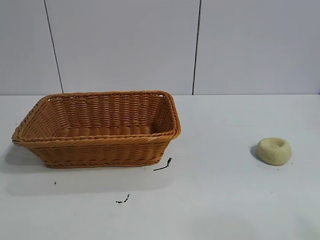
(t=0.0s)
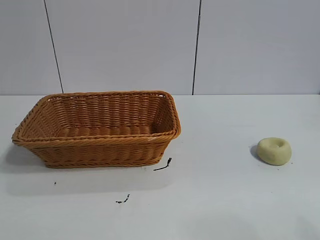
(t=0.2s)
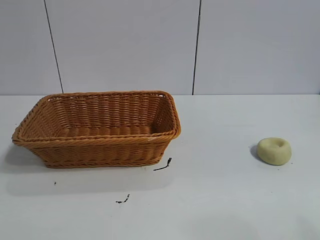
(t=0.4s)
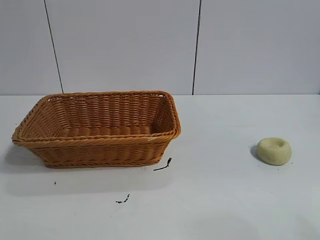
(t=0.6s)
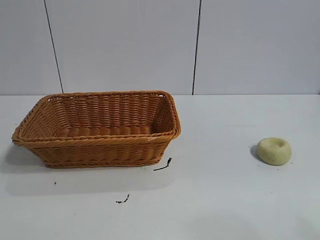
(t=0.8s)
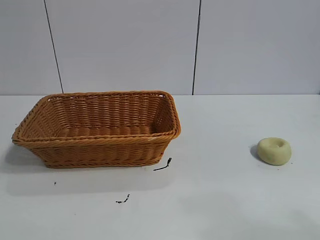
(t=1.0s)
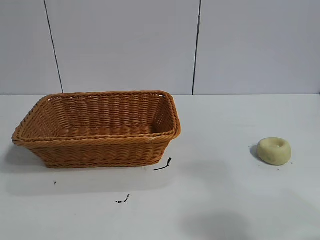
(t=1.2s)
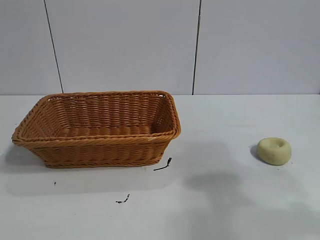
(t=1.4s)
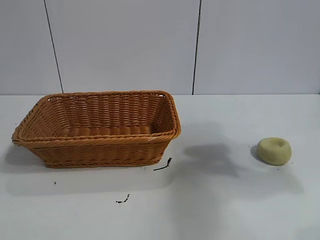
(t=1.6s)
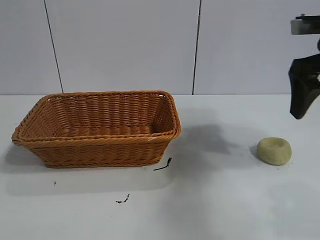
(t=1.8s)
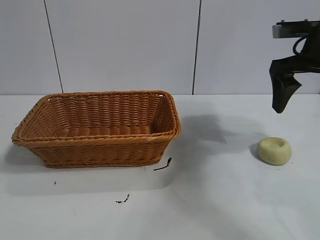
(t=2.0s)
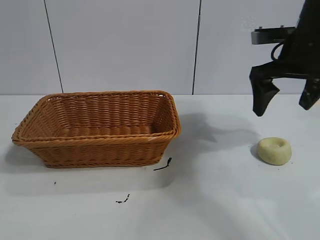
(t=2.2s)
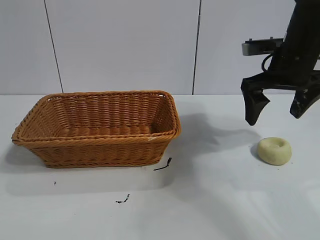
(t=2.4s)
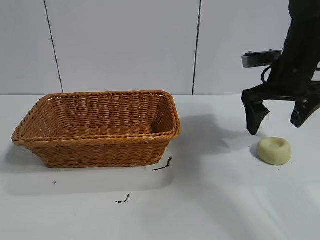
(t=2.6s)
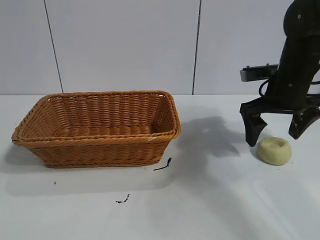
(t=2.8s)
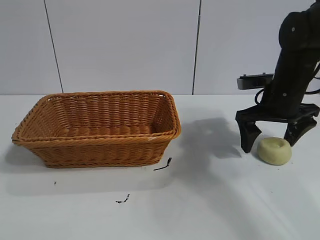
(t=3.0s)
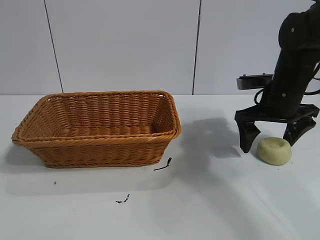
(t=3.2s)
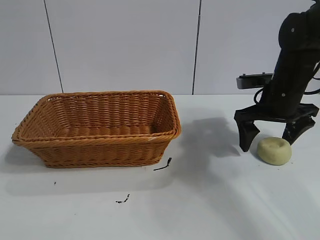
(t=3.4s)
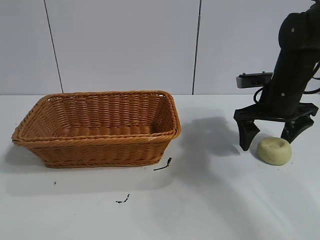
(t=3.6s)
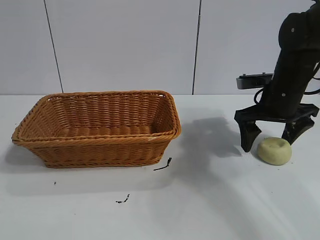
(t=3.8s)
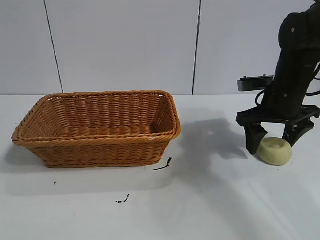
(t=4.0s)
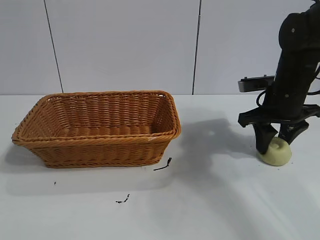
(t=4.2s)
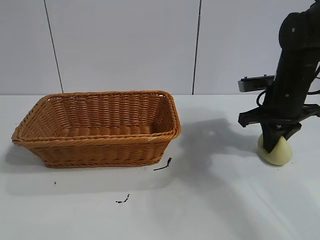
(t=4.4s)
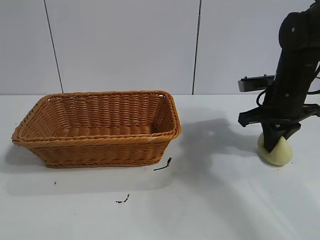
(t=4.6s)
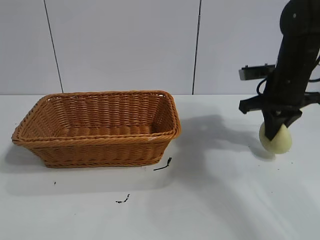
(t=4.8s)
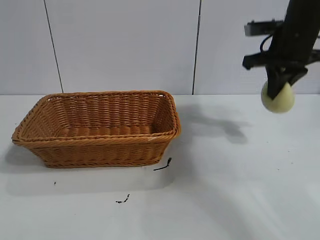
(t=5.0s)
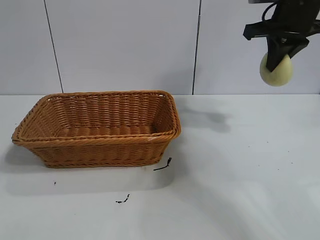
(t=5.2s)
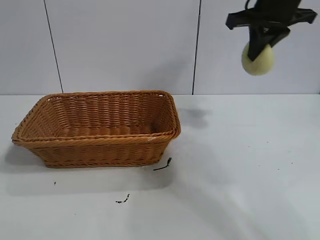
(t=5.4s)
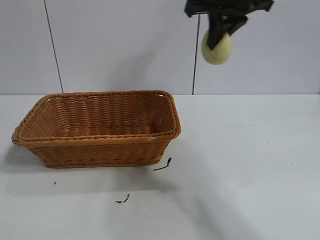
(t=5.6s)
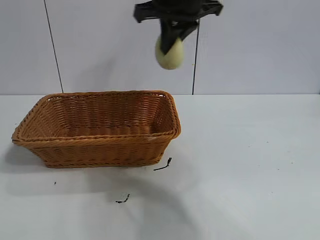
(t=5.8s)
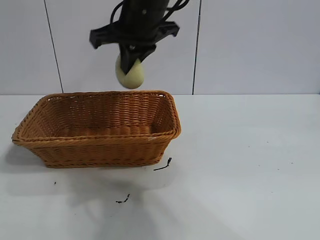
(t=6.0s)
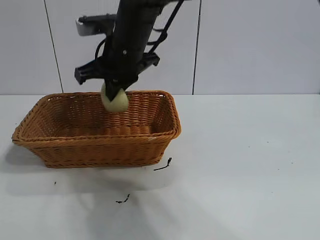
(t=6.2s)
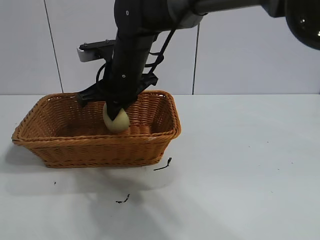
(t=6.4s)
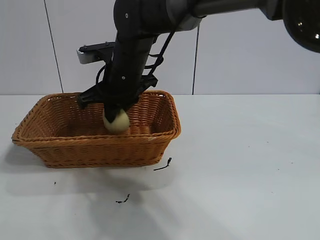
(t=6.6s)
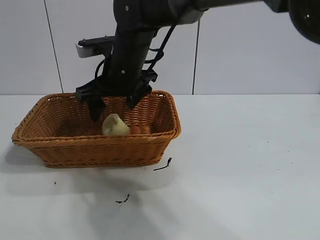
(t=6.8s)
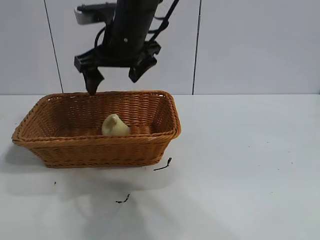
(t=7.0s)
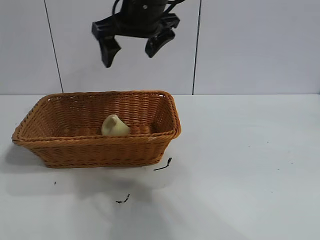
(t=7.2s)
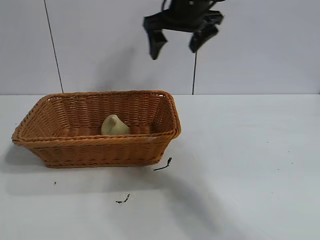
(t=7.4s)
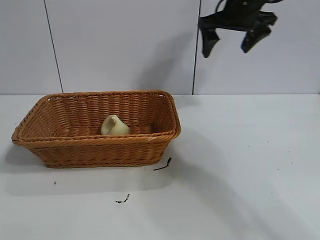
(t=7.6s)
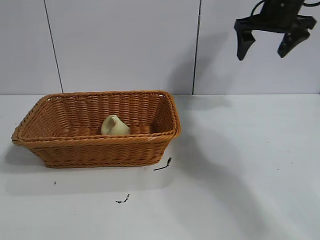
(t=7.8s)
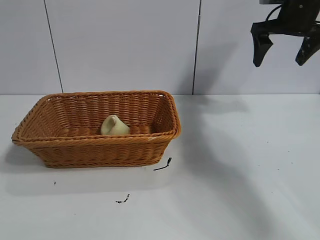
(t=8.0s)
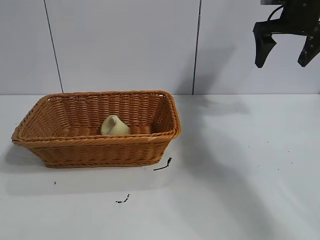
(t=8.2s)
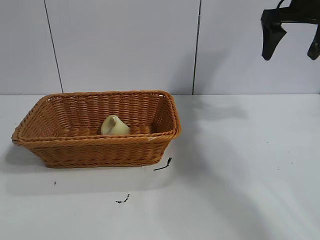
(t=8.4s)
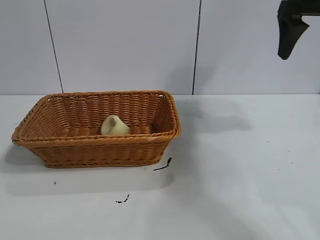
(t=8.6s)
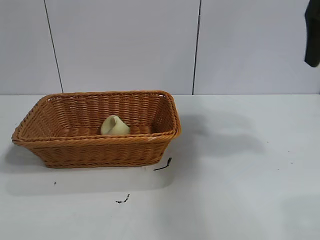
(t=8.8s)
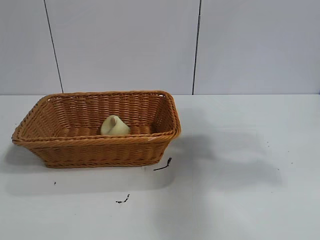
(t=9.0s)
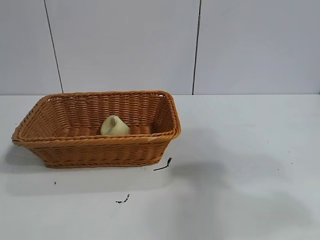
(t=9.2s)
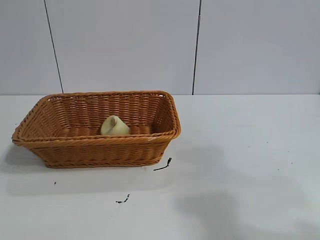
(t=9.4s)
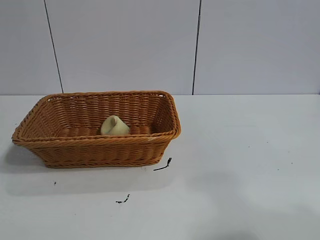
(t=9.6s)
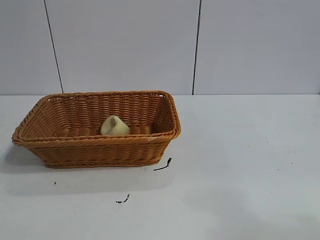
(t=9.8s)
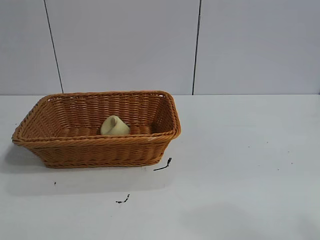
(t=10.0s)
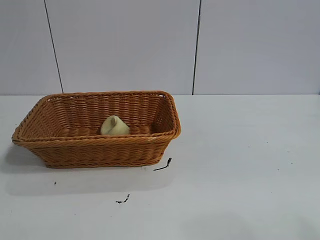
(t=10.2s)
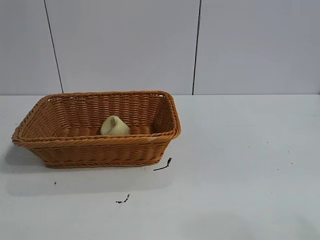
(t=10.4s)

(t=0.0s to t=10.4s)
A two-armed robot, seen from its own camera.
Task of the whole recording: pick up the egg yolk pastry and put it into the basket.
Step, t=1.0s - t=4.6s: Grasp egg yolk pastry with right gripper.
Step, t=4.8s - t=6.8s: Place the egg yolk pastry in the basket with right gripper.
